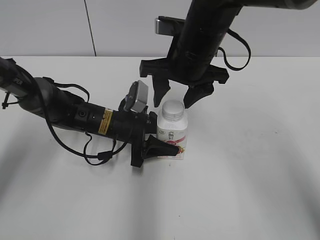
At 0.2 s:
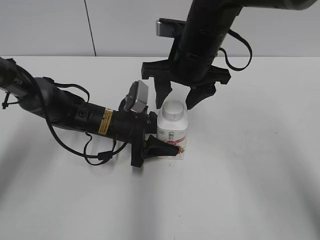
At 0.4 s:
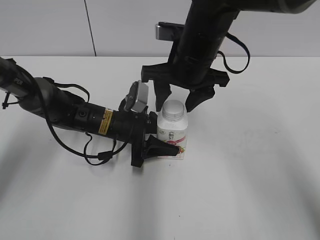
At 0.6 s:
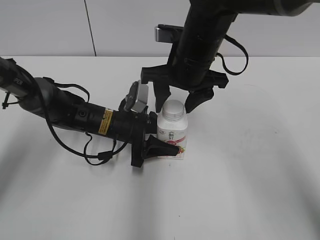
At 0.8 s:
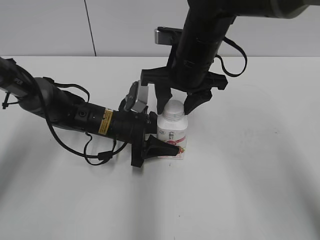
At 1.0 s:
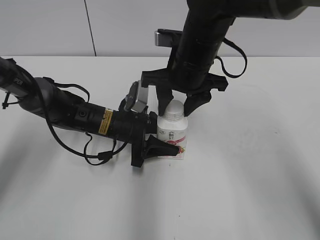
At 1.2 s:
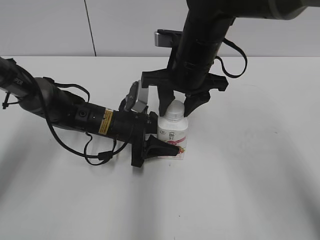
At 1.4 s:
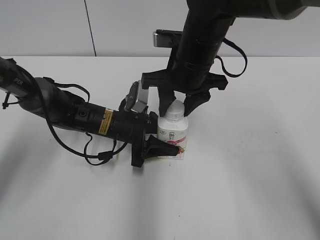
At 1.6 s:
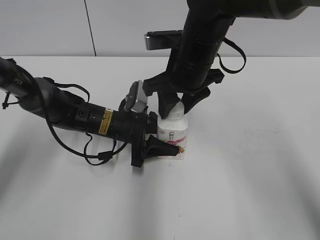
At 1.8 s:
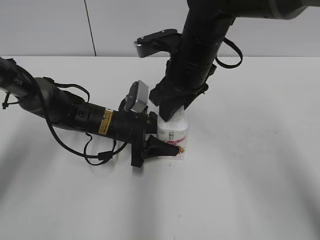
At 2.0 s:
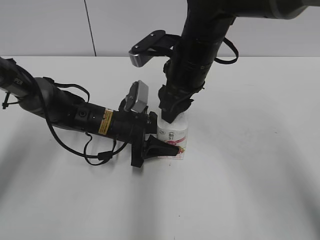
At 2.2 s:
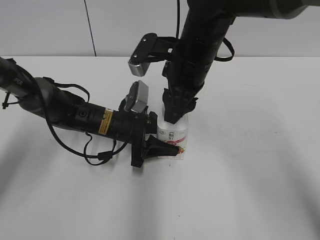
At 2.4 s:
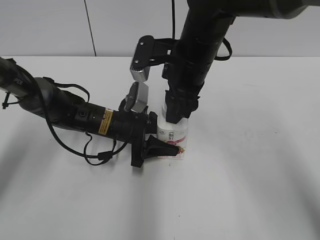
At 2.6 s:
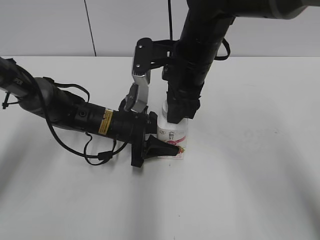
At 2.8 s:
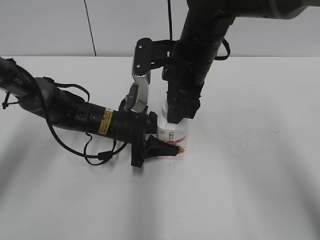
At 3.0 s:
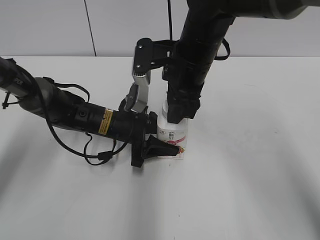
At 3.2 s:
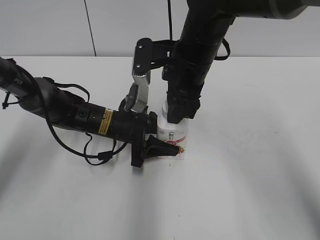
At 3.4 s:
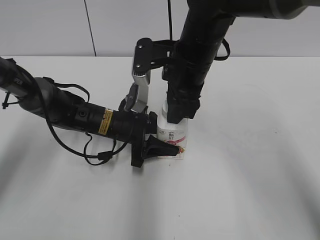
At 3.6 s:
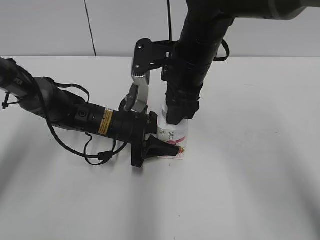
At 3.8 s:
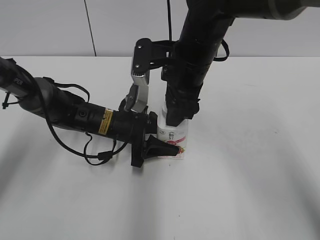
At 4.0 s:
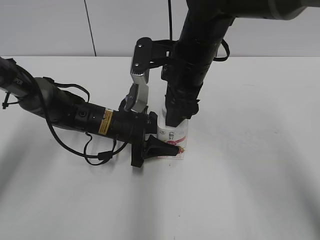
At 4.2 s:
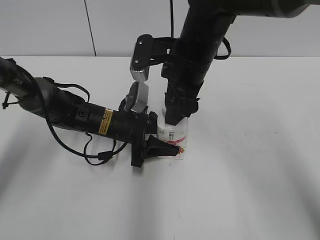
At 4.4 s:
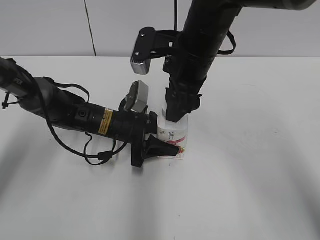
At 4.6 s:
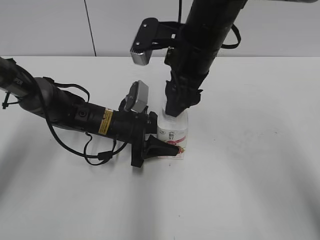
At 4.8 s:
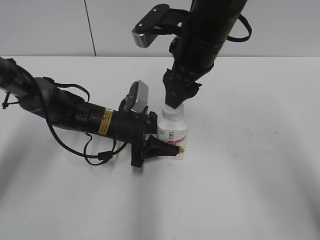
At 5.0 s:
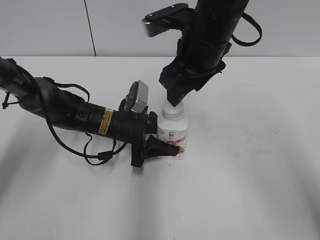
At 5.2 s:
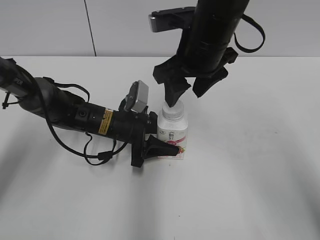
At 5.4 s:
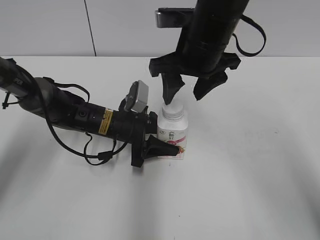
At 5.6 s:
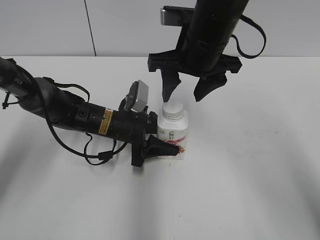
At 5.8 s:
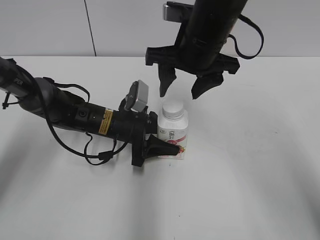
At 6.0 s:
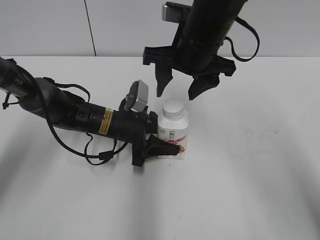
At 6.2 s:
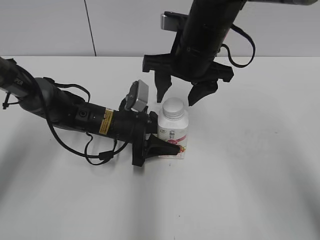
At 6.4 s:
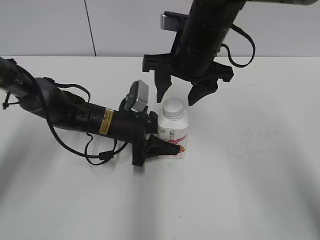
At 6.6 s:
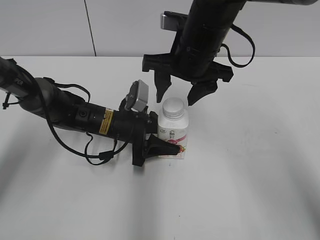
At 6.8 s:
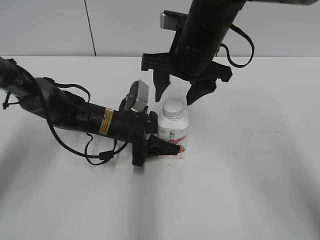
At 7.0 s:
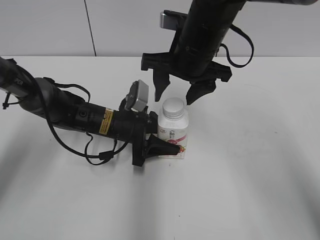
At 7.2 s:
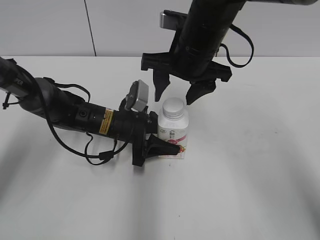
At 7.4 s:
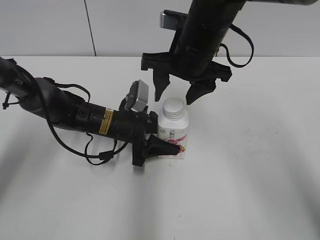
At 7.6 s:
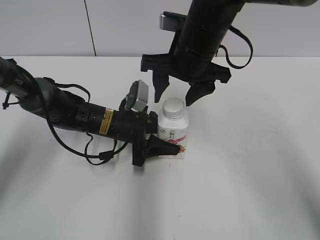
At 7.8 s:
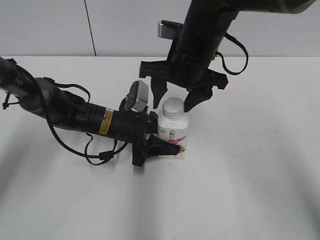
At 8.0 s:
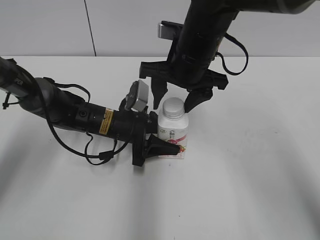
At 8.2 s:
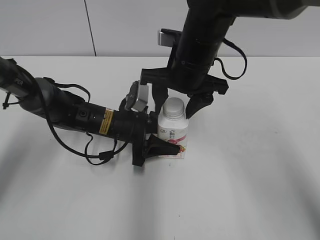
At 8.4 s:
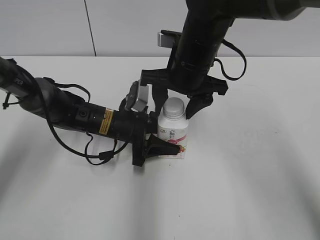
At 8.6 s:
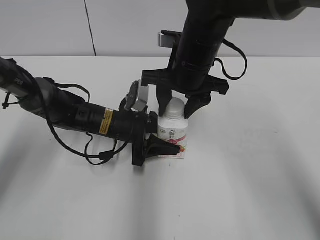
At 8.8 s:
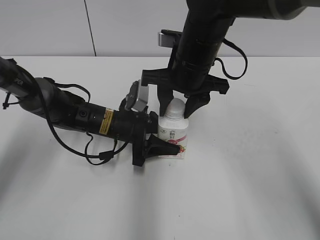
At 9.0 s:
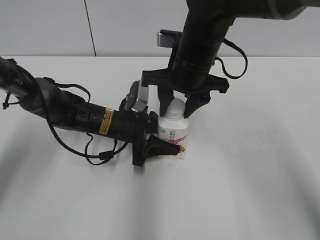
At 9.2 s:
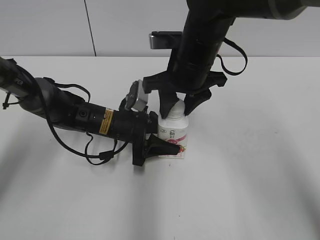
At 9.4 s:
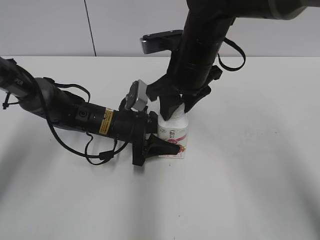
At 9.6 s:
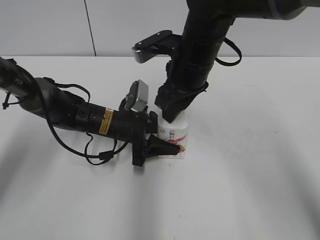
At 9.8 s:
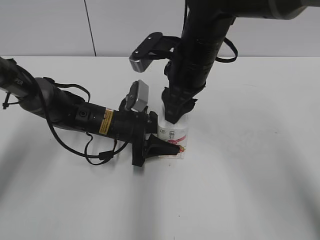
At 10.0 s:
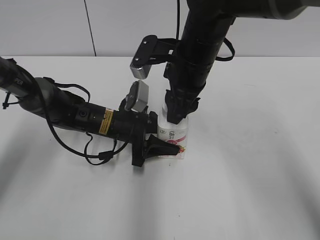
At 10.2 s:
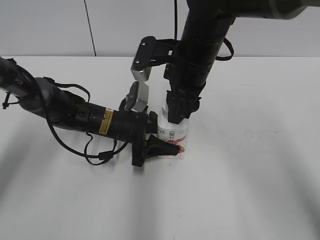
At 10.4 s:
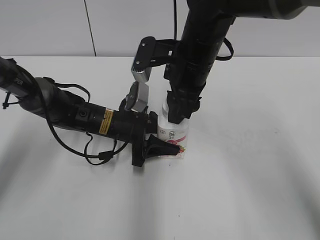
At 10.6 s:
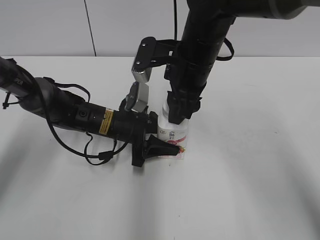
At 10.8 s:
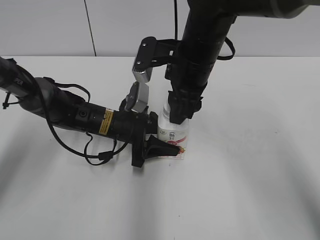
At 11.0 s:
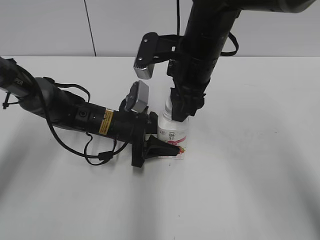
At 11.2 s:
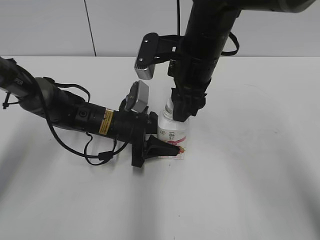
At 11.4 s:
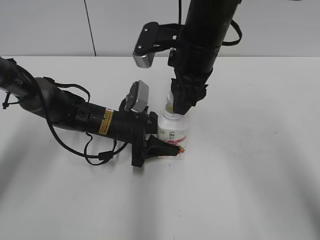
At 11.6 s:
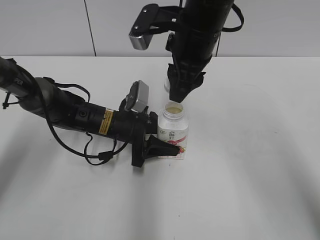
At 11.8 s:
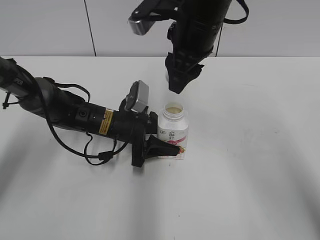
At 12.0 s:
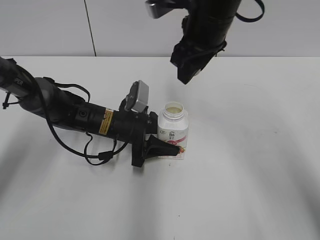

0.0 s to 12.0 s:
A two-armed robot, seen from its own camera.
0.0 to 1.6 s: The right gripper closes.
3.0 to 4.4 s: The right gripper opens up.
6.0 to 7.6 s: The grippers stay close to where they were, moving slightly.
7.6 to 9.0 s: The right gripper closes.
10.4 to 12.0 s: The right gripper travels upward by some 5 cm.

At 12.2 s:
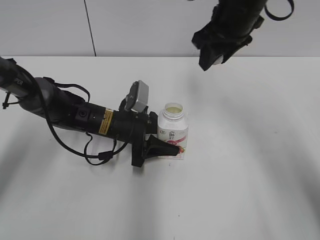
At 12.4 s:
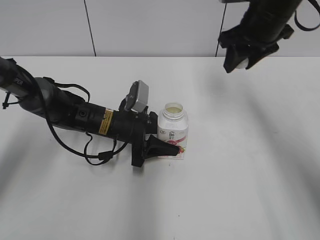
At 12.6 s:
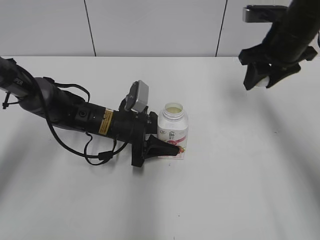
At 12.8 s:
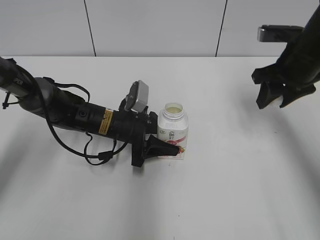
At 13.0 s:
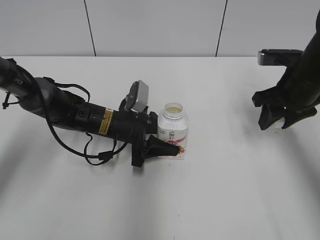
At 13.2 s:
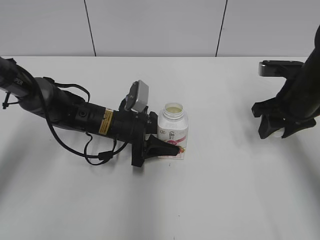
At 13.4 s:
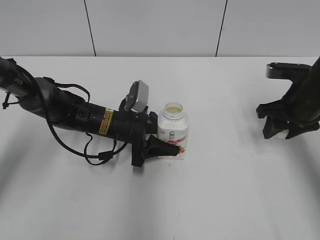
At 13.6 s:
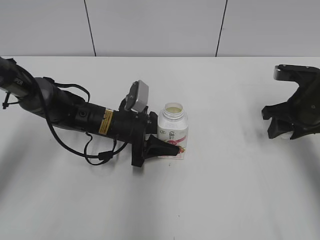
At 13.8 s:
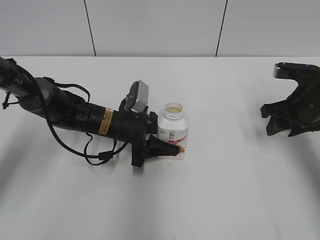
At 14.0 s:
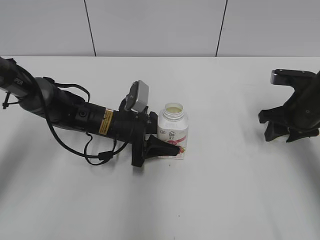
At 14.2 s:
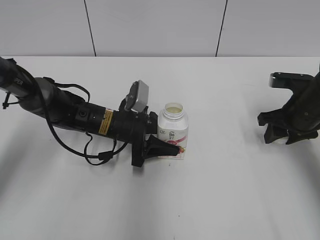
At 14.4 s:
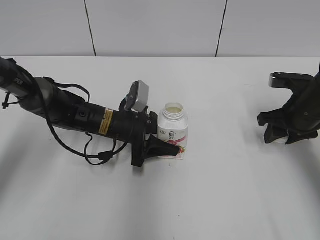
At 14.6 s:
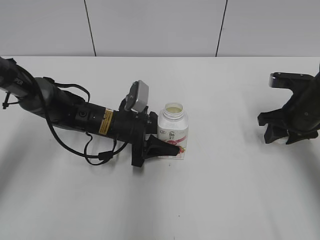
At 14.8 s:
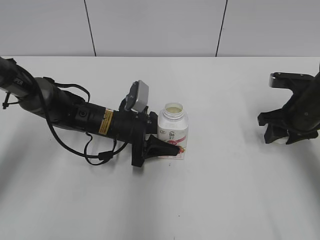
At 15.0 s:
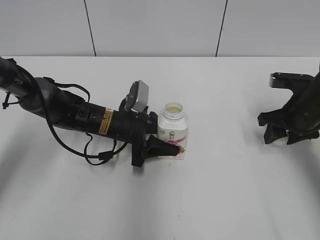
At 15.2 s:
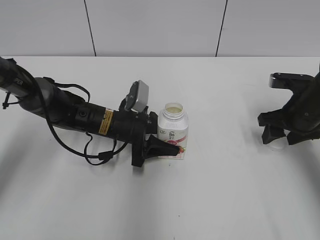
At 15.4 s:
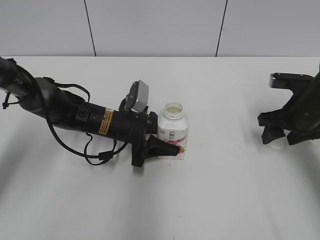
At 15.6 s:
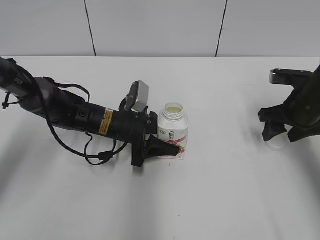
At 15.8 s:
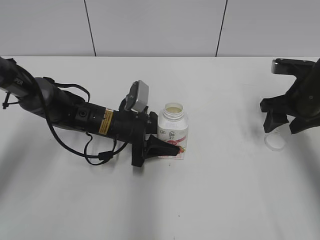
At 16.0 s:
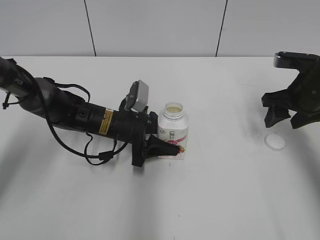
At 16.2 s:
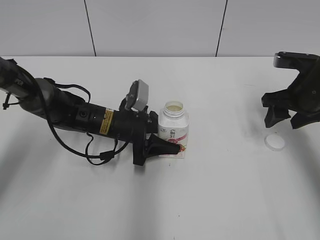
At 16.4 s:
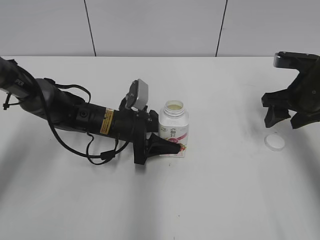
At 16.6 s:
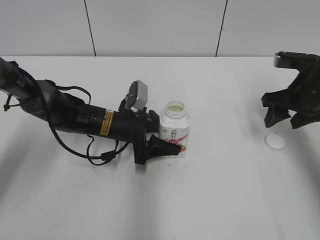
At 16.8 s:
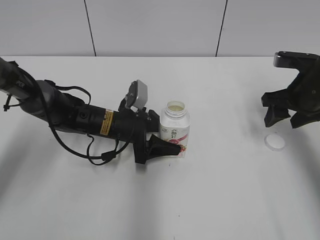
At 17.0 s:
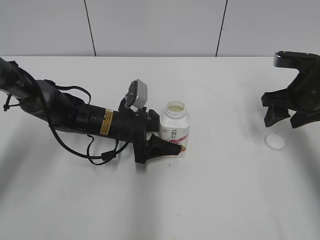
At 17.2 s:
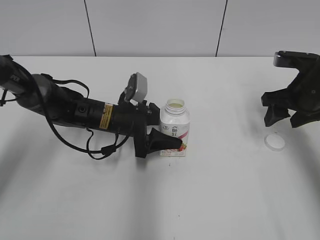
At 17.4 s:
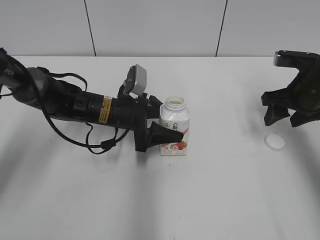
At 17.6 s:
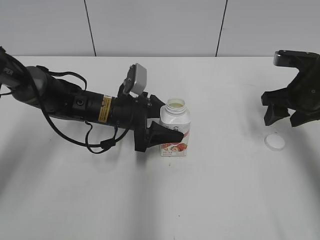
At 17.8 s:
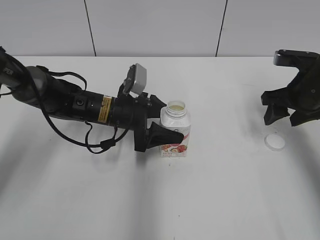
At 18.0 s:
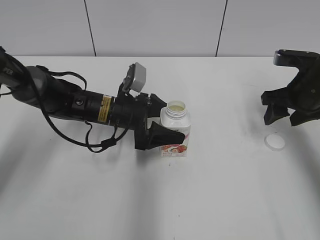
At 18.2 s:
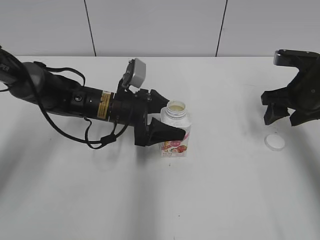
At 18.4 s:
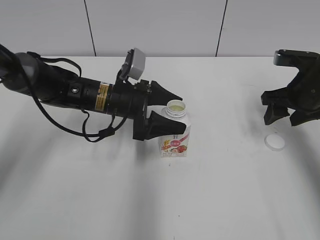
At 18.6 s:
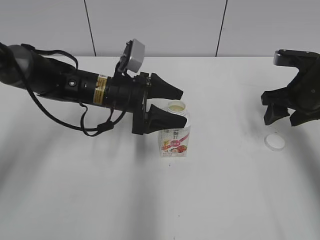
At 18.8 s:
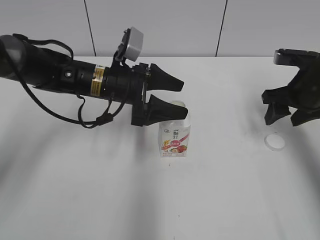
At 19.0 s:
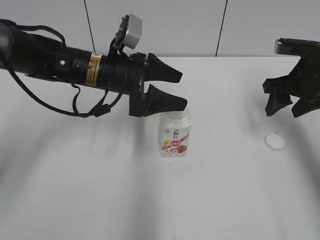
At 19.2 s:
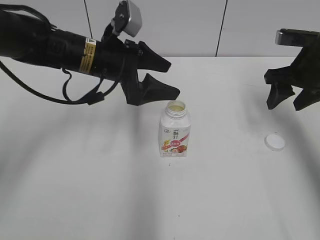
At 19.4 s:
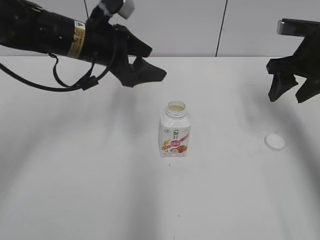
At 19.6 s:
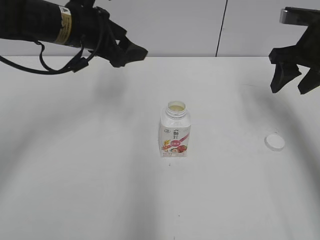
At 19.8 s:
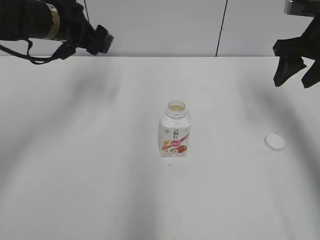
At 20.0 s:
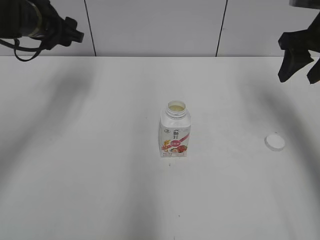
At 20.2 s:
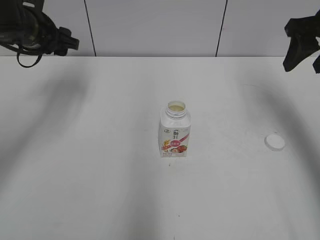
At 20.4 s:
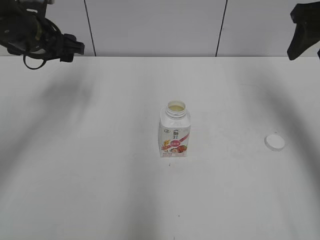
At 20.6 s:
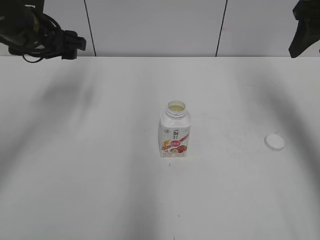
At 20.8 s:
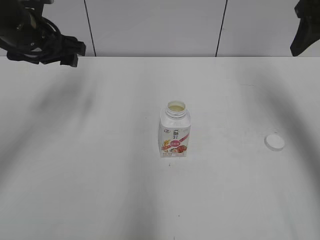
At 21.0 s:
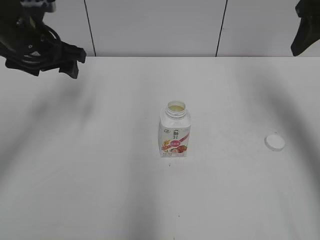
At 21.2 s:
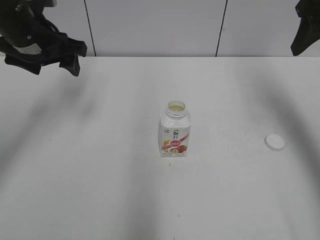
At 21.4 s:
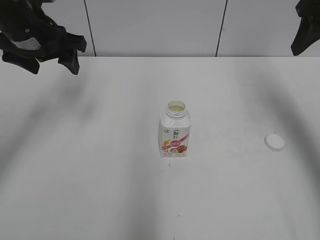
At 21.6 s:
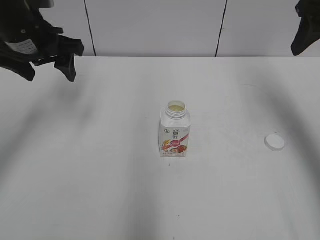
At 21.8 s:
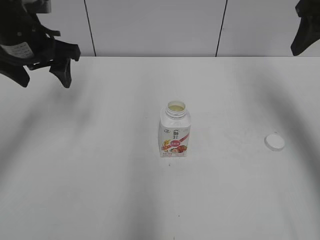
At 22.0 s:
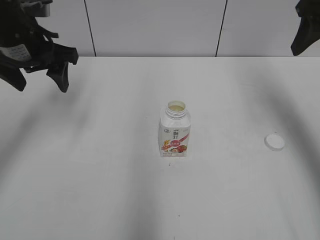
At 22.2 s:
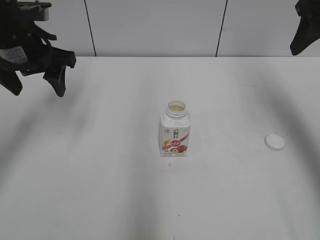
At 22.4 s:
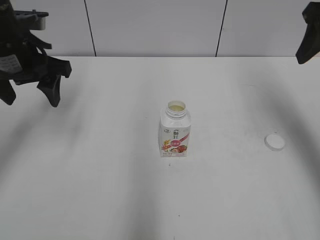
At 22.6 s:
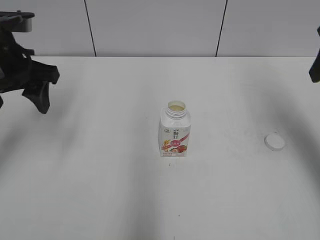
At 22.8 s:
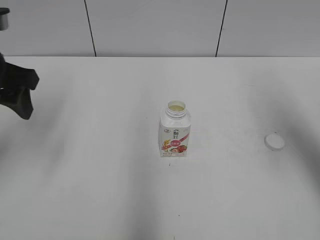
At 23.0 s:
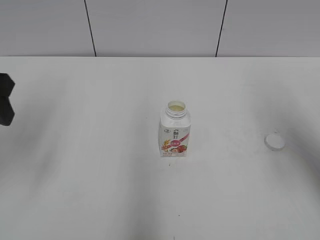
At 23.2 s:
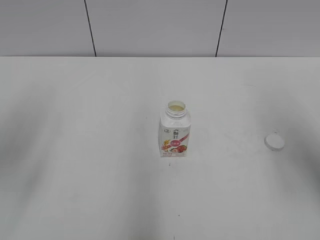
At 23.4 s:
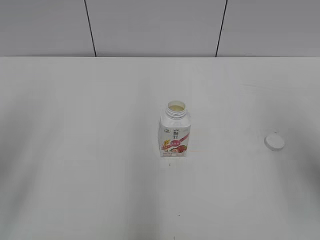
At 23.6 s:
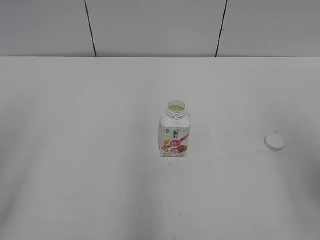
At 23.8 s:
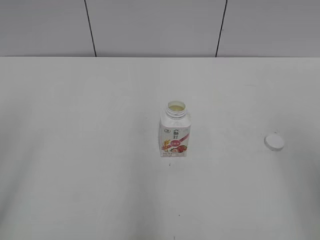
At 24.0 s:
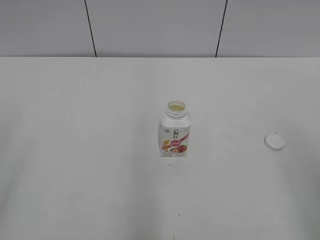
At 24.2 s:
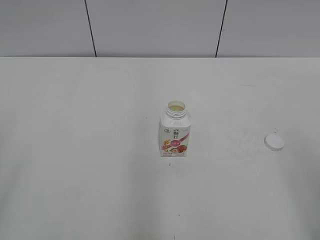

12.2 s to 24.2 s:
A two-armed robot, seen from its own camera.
Step, 12.2 to 15.4 s: Place the bottle cap on the right.
Step, 15.6 to 18.2 s: Place the Yili Changqing with the left hand.
12.2 to 13.8 s: The right gripper is displaced to the right and downward by about 20 cm.
13.8 to 15.2 s: The right gripper opens.
15.2 to 18.2 s: The grippers stay close to where they were, moving slightly.
18.2 to 19.8 s: The left gripper heads upward and to the left, covering about 20 cm; the right gripper heads upward, covering roughly 10 cm.
19.8 to 21.2 s: The left gripper ends up about 5 cm from where it was; the right gripper heads upward, covering some 5 cm.
21.2 to 22.6 s: Both grippers travel together backward, approximately 5 cm.
22.6 to 24.2 s: The grippers both shift backward by some 25 cm.
